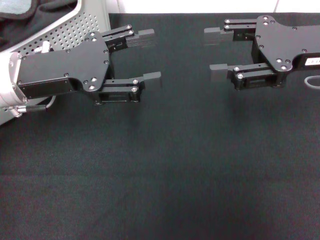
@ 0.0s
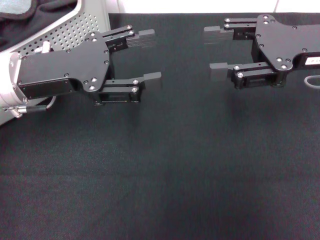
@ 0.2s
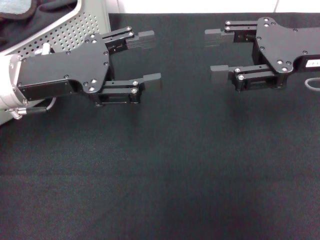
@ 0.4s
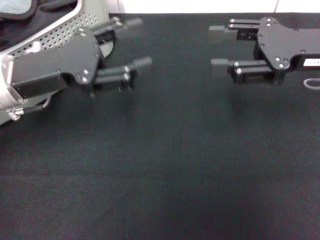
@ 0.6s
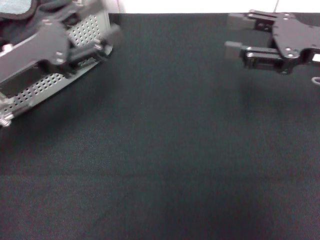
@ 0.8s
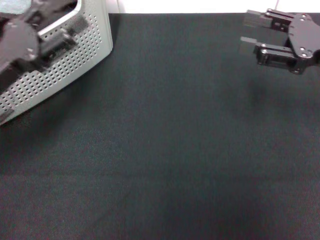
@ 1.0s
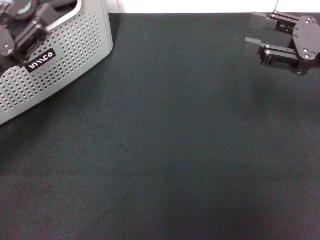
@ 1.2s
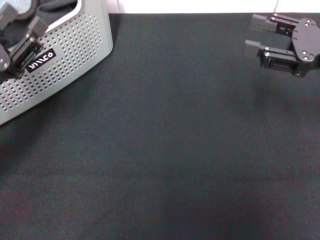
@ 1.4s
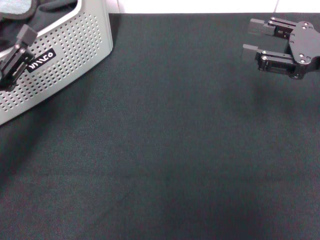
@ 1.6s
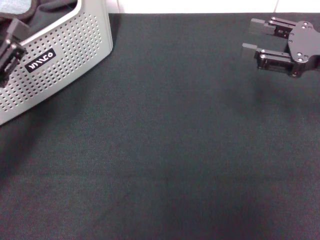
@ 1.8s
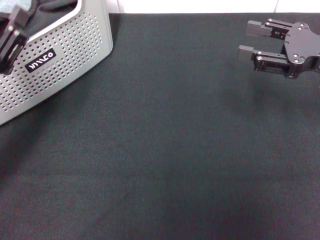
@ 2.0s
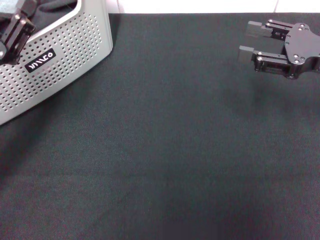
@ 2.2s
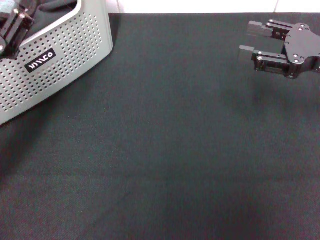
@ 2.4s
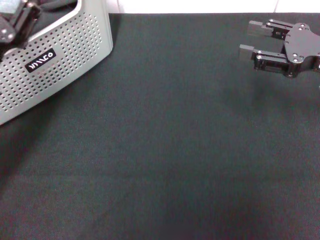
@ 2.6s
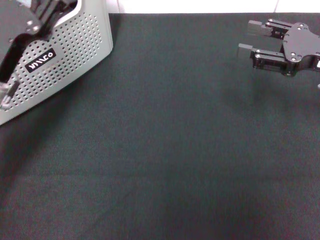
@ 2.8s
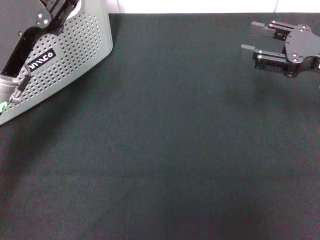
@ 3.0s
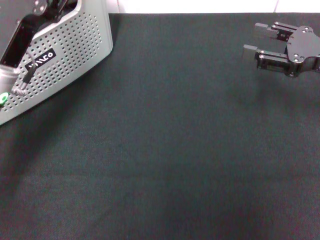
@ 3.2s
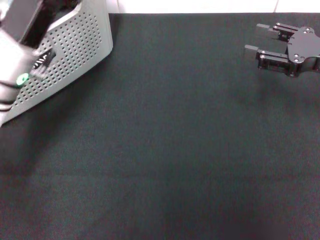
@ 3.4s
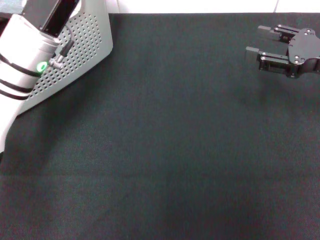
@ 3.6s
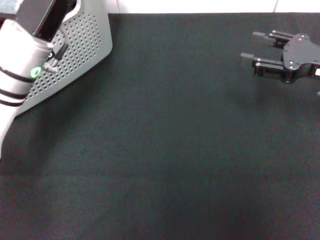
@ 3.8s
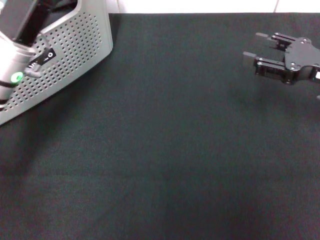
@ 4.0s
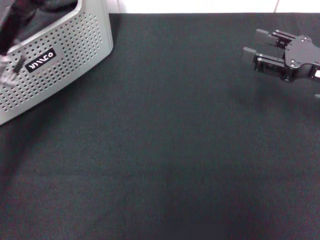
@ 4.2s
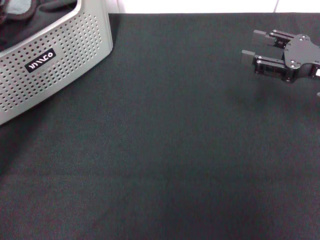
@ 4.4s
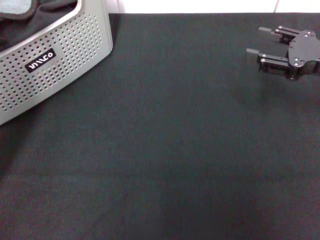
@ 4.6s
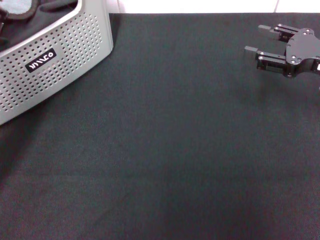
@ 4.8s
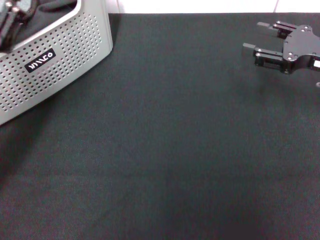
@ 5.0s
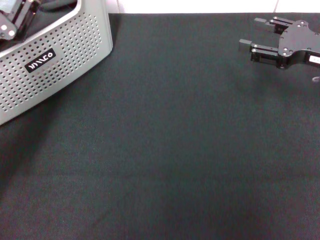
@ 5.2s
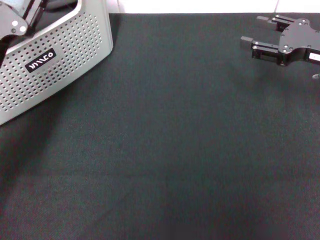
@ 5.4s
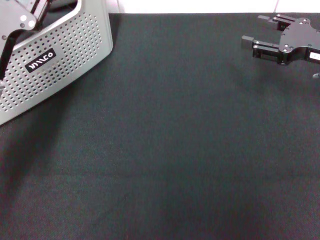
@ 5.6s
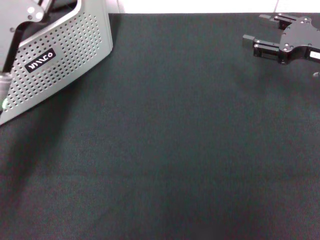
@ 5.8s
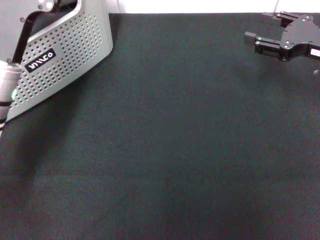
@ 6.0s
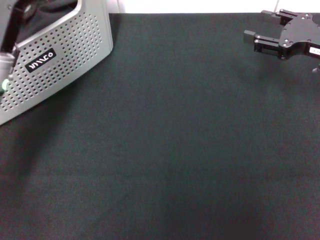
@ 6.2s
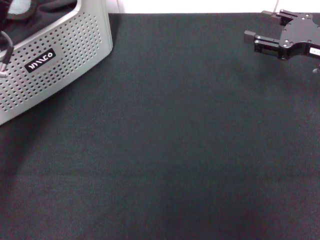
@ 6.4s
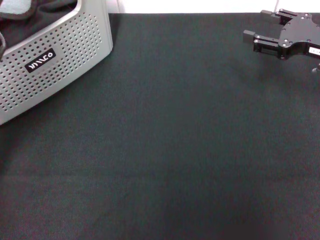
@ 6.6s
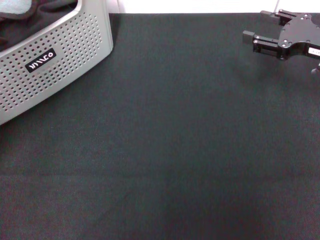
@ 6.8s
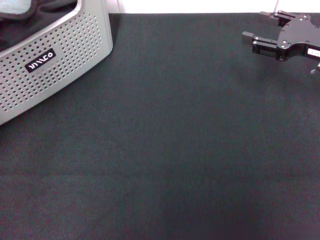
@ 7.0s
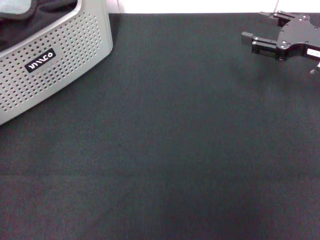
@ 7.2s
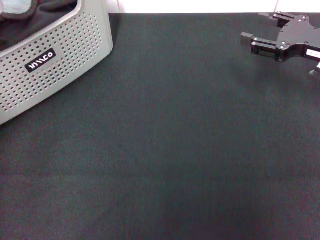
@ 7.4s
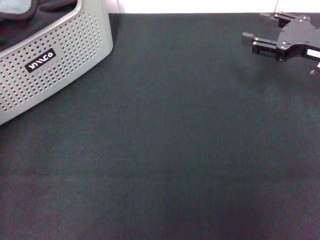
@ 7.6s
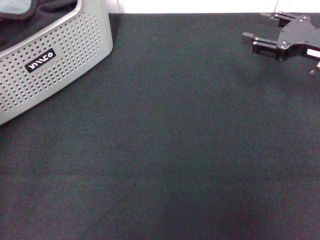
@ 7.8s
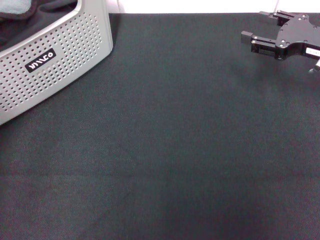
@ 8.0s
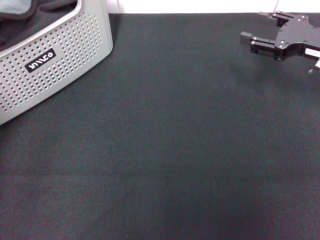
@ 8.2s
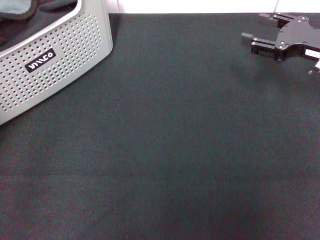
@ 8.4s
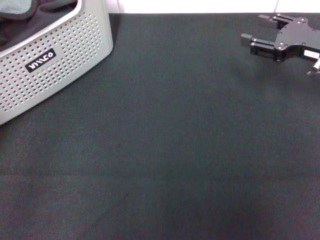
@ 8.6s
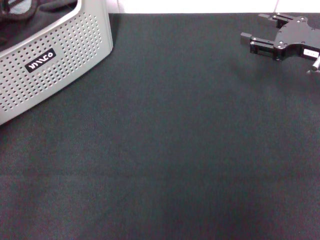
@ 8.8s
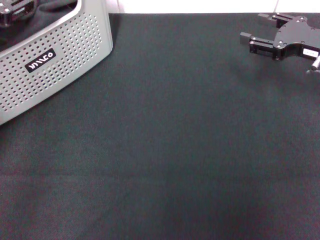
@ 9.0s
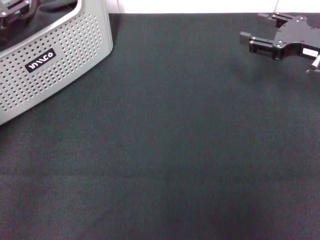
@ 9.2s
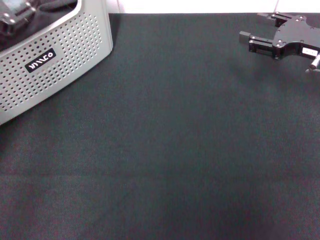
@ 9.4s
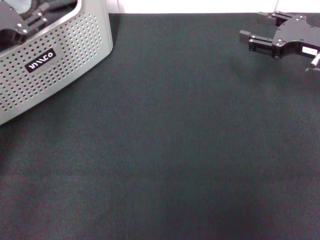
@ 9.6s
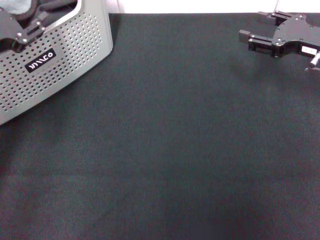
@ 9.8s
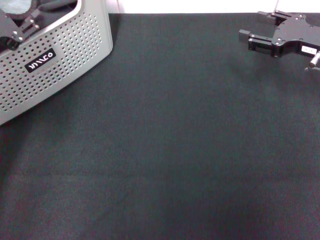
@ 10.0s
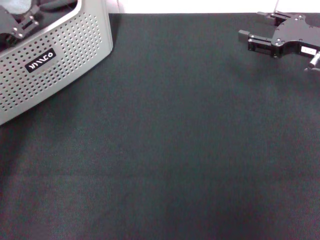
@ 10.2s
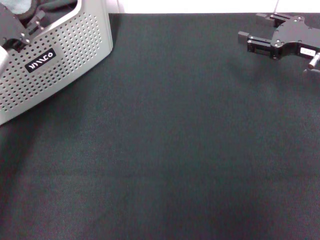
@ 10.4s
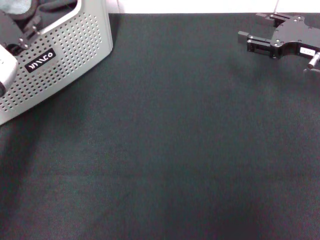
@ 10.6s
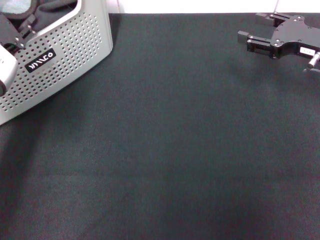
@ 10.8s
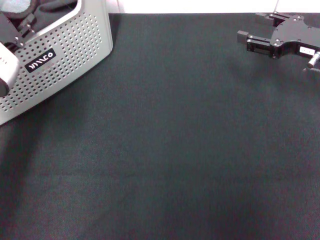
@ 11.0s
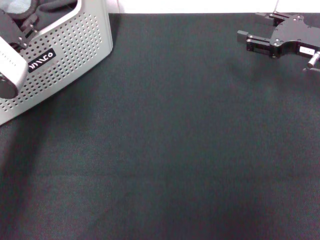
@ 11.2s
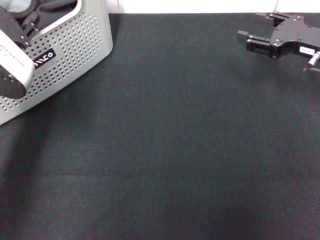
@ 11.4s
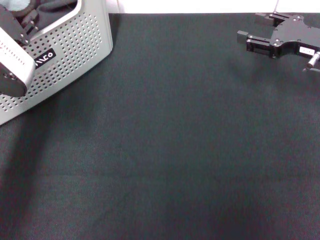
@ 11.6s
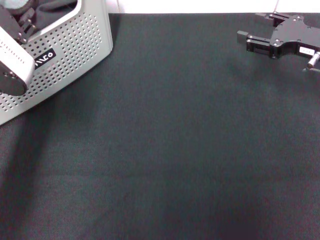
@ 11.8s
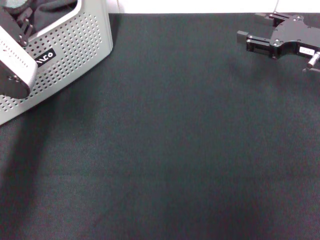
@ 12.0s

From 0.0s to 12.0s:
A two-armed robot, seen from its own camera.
Task of the whole recording: pick up the towel from the storage box and lay it flat on the black tablecloth.
From 0.0s to 1.6s: The left gripper travels backward, downward and to the left by about 15 cm; the right gripper travels to the right by approximately 5 cm.
From 1.6s to 3.0s: The left gripper goes some 10 cm forward and to the right.
From 4.4s to 6.0s: The left gripper is displaced to the right by about 5 cm.
From 6.0s to 7.6s: The left gripper travels upward by roughly 15 cm.
From 7.6s to 9.0s: The left gripper moves roughly 5 cm.
From 9.0s to 10.4s: The left gripper moves approximately 5 cm.
From 10.4s to 12.0s: The grippers make only small movements.

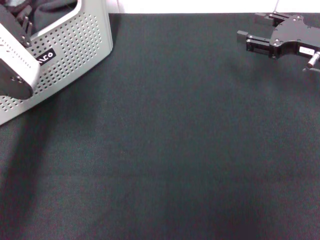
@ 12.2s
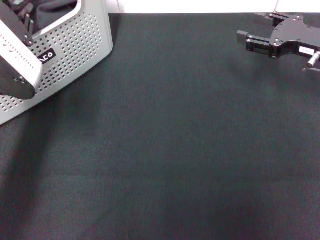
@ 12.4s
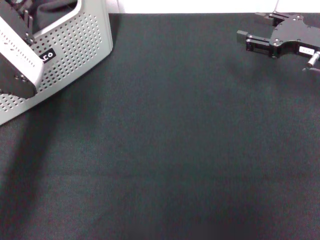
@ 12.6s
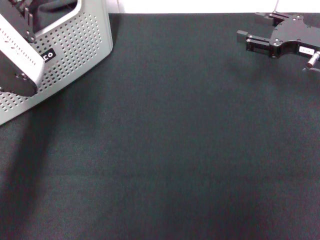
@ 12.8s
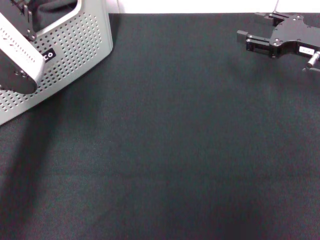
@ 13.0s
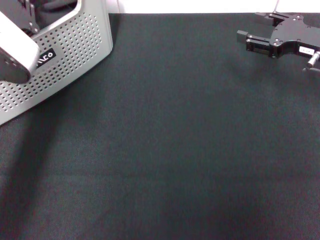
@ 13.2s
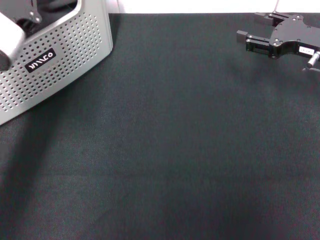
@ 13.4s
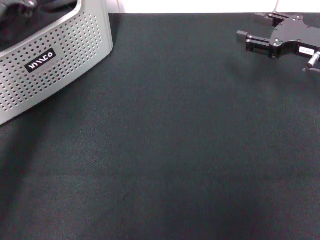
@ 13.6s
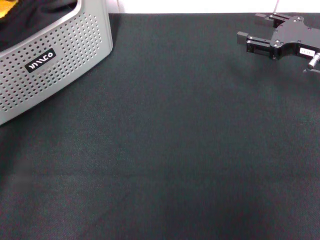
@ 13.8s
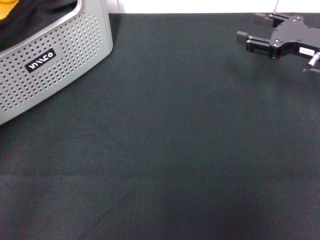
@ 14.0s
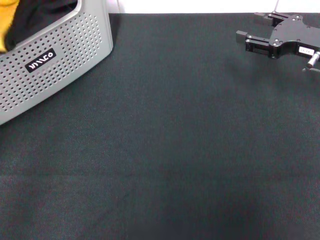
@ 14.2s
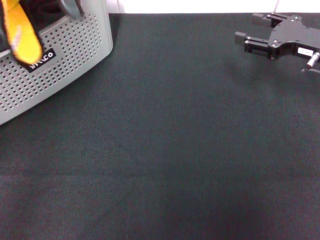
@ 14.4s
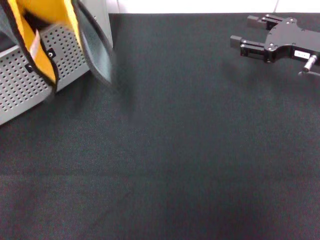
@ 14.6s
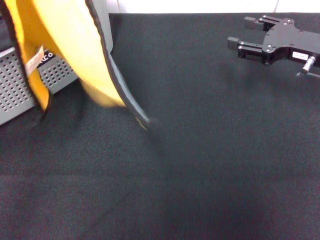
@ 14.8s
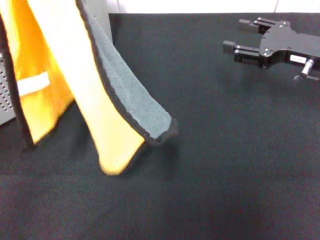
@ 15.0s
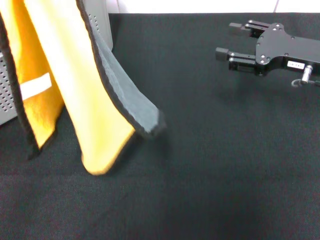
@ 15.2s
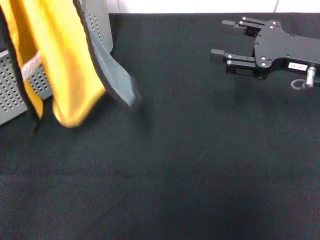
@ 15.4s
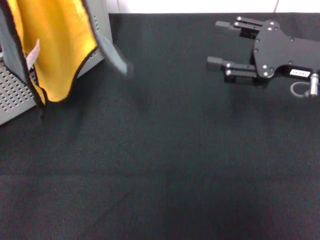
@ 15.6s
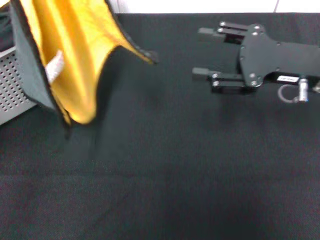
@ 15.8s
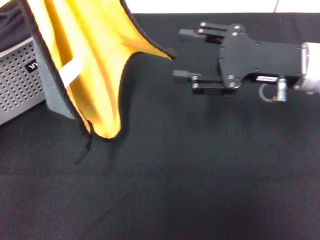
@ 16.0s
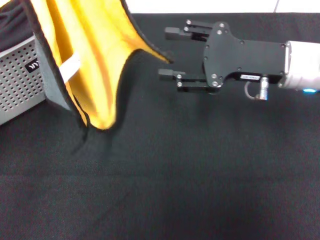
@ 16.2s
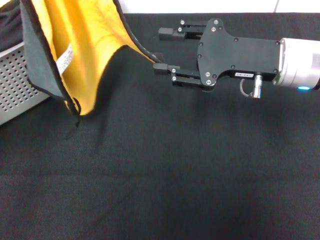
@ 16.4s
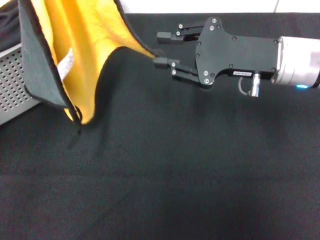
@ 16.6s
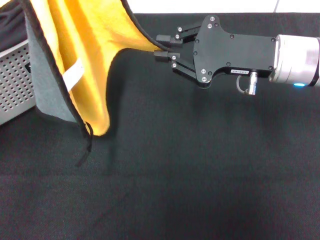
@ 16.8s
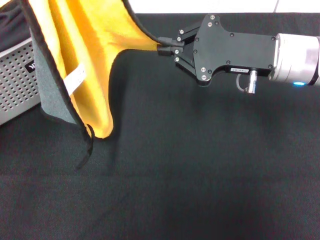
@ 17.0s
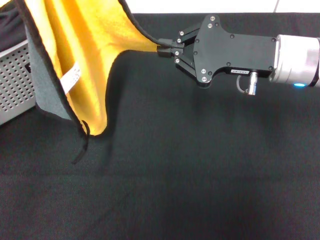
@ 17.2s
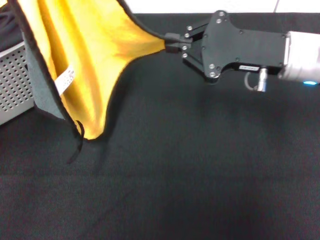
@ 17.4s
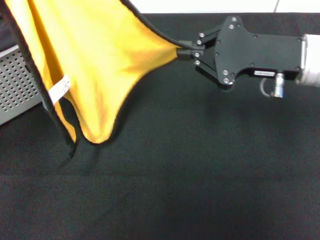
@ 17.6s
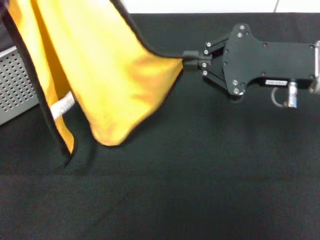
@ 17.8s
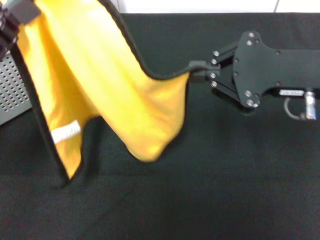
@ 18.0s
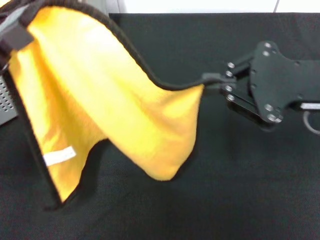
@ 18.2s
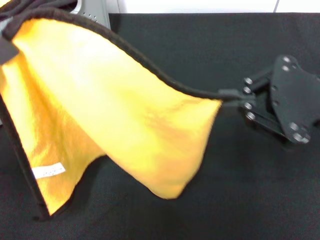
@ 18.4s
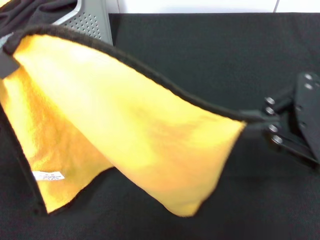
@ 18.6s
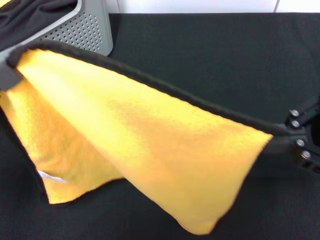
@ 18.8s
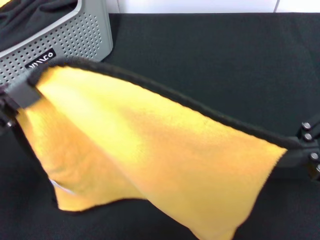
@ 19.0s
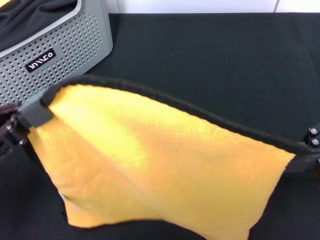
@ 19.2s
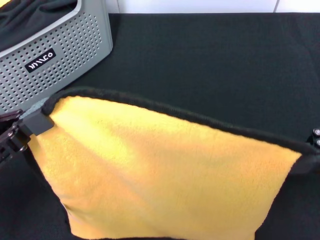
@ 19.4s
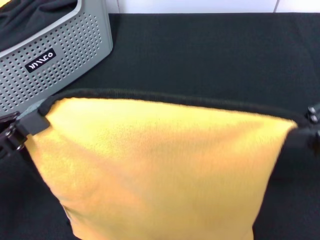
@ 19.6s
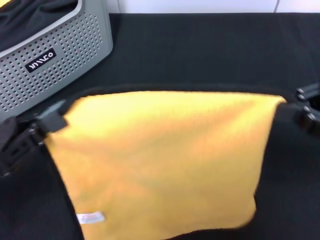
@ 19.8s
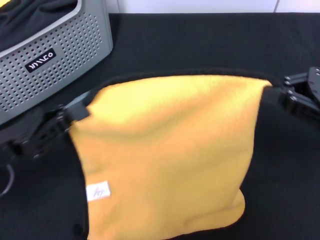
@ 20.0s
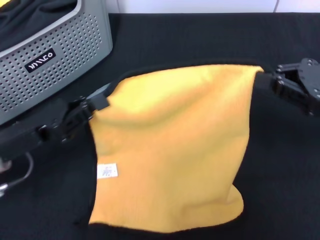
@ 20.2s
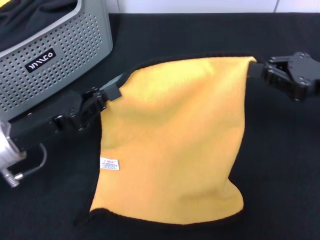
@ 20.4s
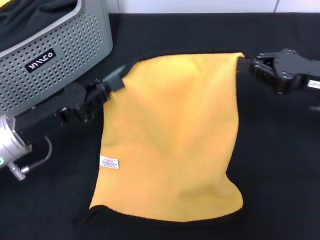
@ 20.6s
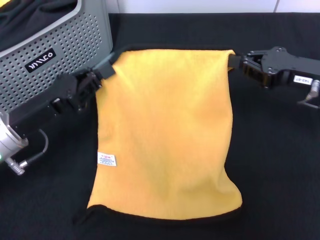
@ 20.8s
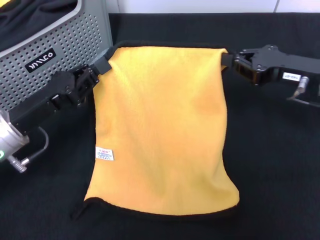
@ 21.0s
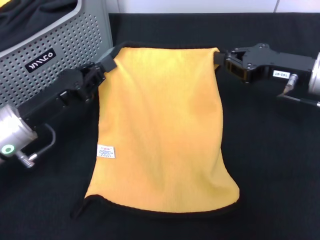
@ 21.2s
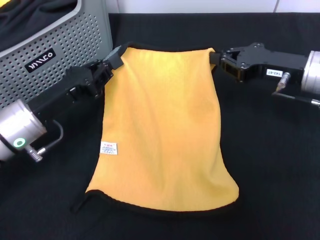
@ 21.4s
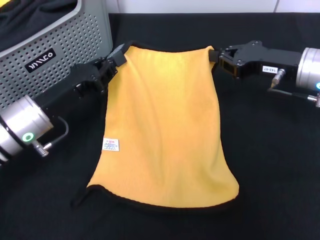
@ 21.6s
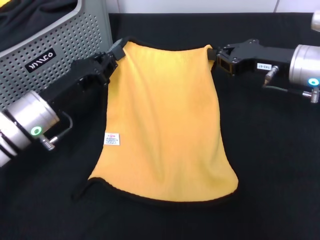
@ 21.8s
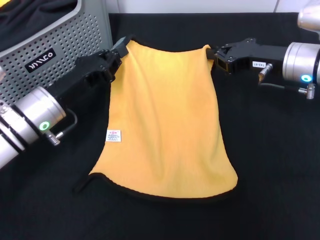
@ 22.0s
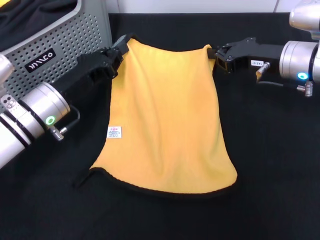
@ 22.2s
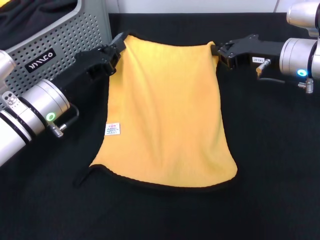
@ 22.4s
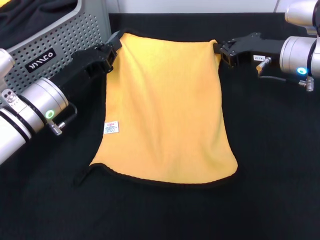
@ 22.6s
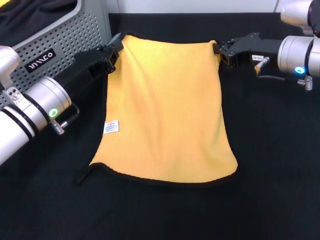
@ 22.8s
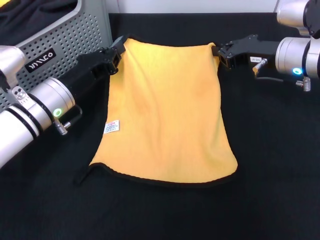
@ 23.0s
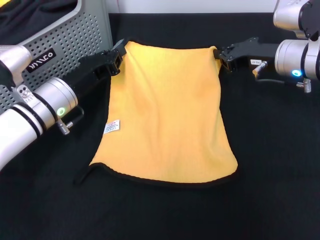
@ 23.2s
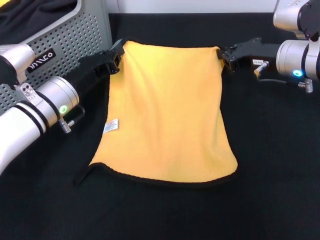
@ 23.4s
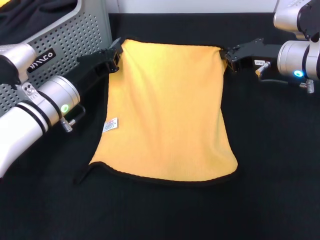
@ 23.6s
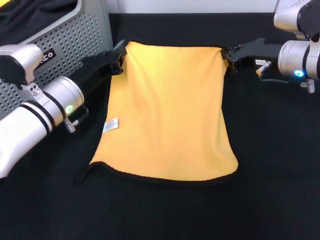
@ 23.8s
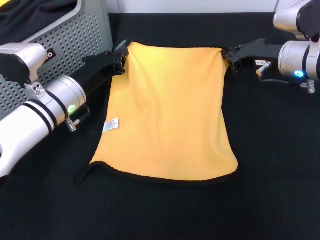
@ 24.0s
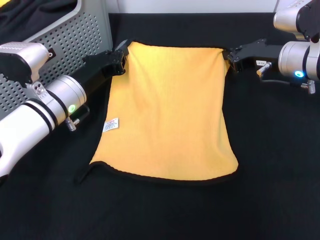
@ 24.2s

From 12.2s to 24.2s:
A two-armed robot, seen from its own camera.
Task of the whole recording: pick up the towel from the storage box and lay it flat on the black tablecloth.
Step, from 13.4s to 17.0s: Spread the towel flat with the left gripper.
From 12.2s to 13.8s: The left gripper travels upward by roughly 5 cm, and closes.
From 13.8s to 15.2s: The left gripper ends up approximately 5 cm from where it was.
From 15.2s to 16.6s: The right gripper moves to the left, some 10 cm.
From 16.6s to 18.2s: The left gripper is displaced backward by roughly 5 cm. The right gripper goes some 10 cm backward and to the right, and closes its fingers.
From 18.2s to 19.8s: The right gripper is displaced to the right by some 5 cm. Meanwhile the left gripper moves downward, roughly 5 cm.
From 19.8s to 21.2s: The right gripper goes some 15 cm forward, to the left and downward. Meanwhile the left gripper goes about 10 cm forward and to the right.
From 21.2s to 22.6s: The two grippers go some 5 cm forward.
From 22.6s to 24.2s: The grippers make only small movements.
